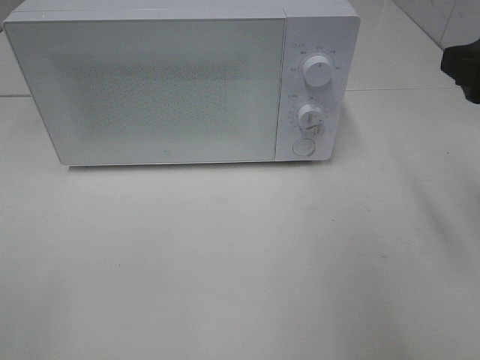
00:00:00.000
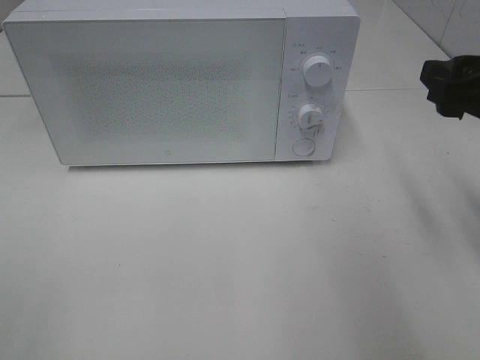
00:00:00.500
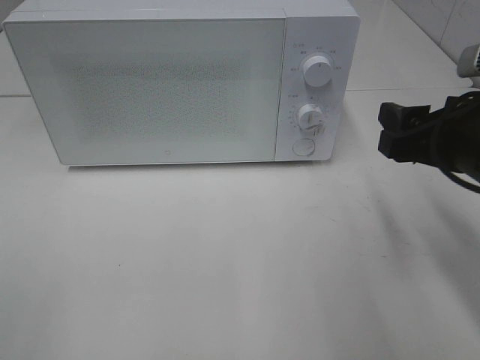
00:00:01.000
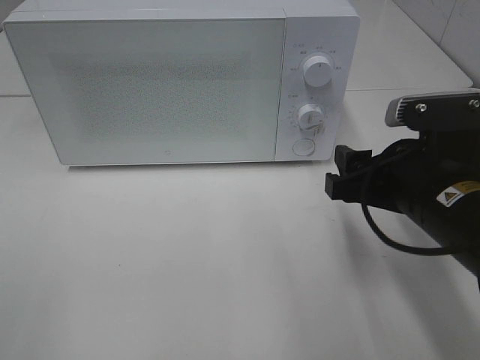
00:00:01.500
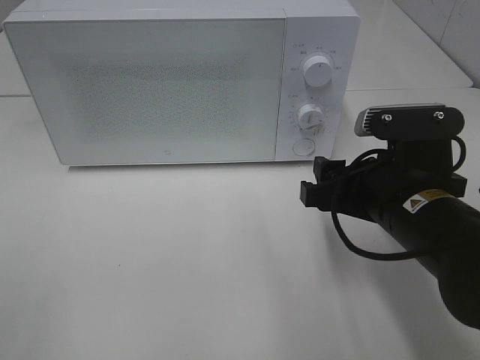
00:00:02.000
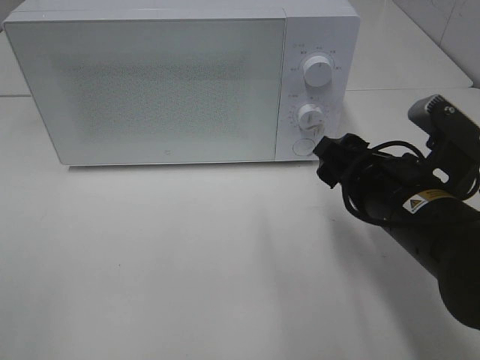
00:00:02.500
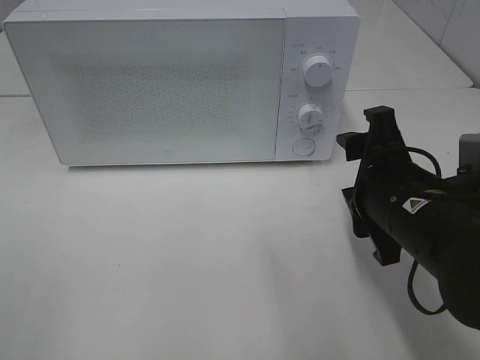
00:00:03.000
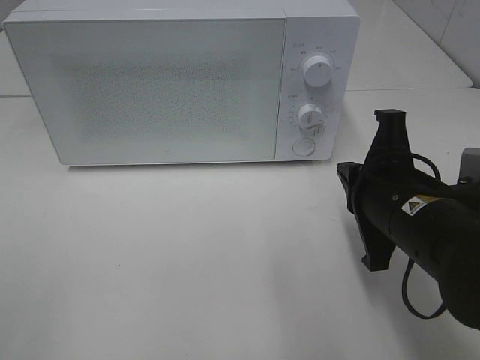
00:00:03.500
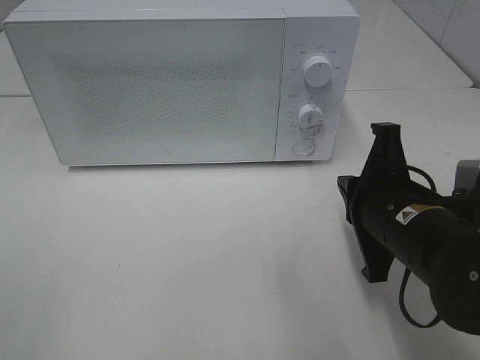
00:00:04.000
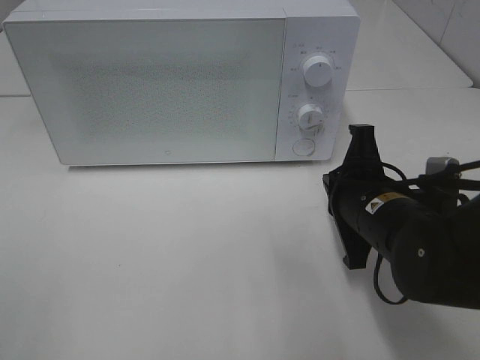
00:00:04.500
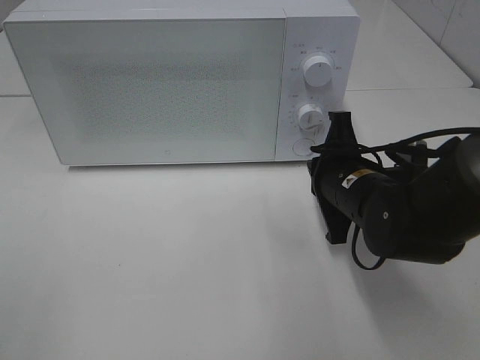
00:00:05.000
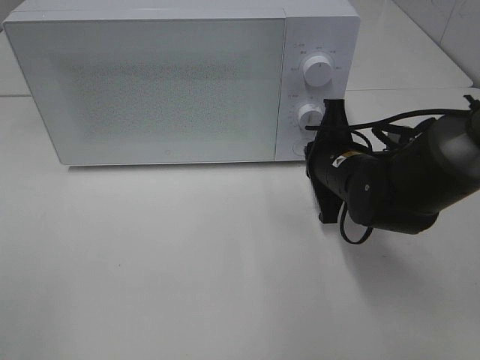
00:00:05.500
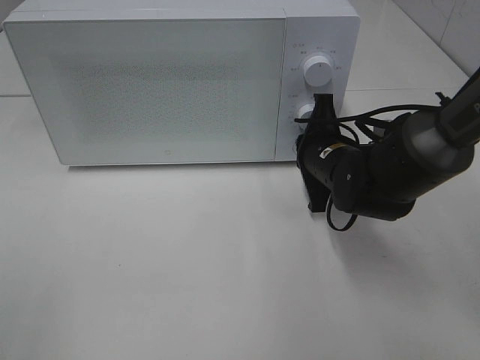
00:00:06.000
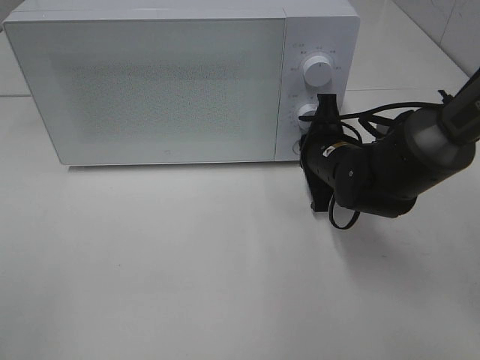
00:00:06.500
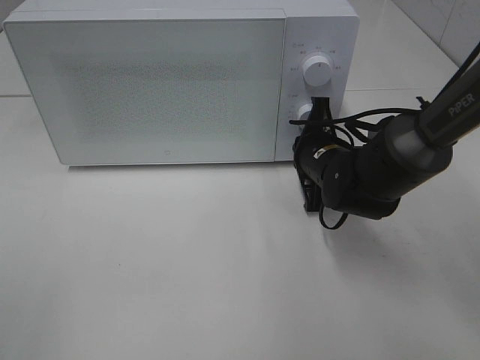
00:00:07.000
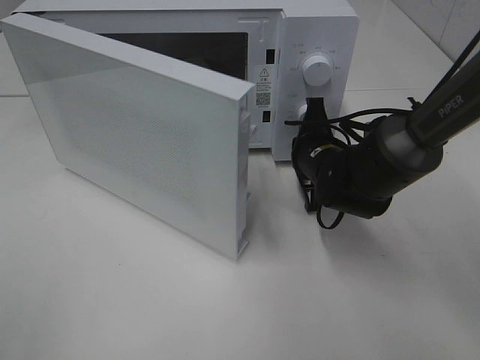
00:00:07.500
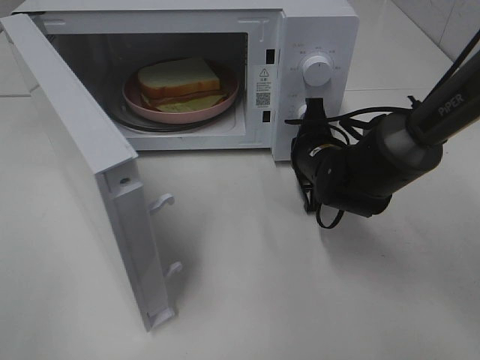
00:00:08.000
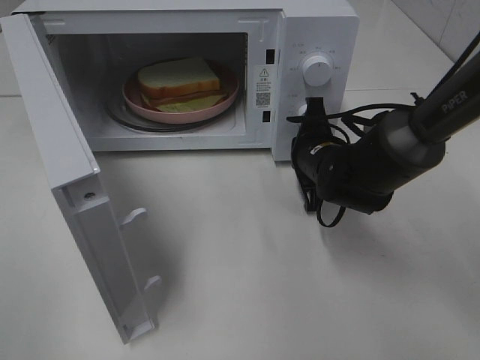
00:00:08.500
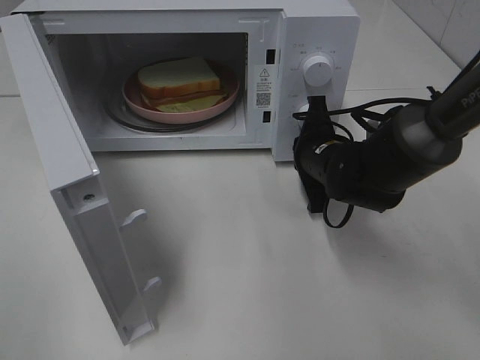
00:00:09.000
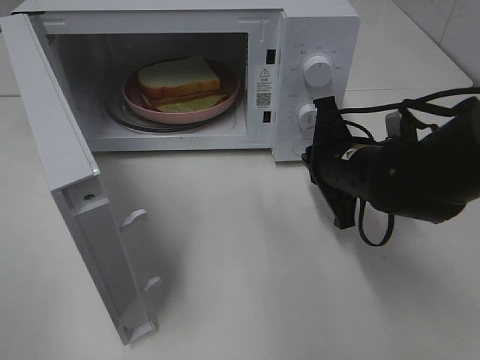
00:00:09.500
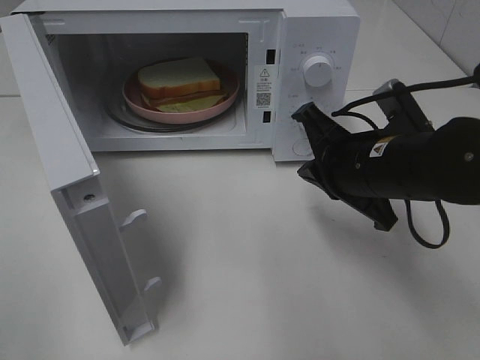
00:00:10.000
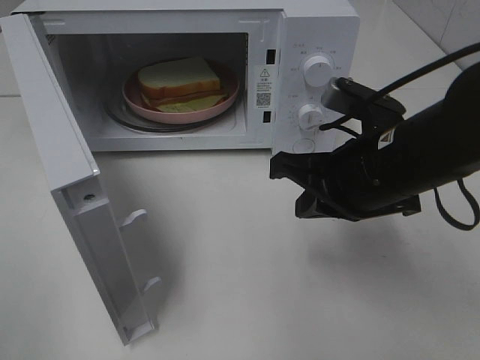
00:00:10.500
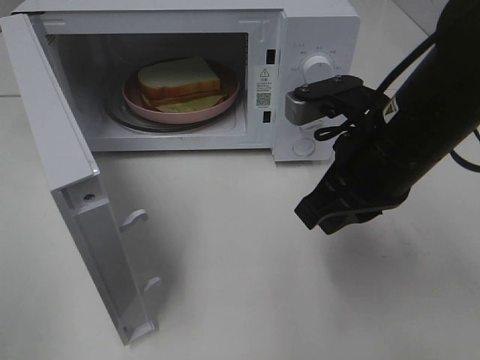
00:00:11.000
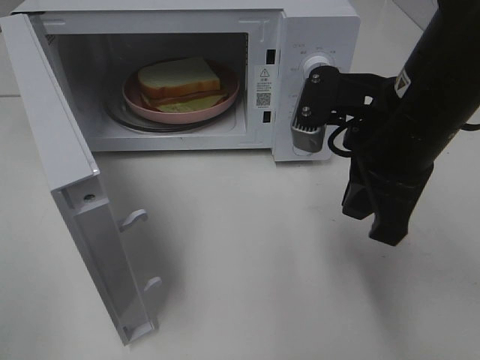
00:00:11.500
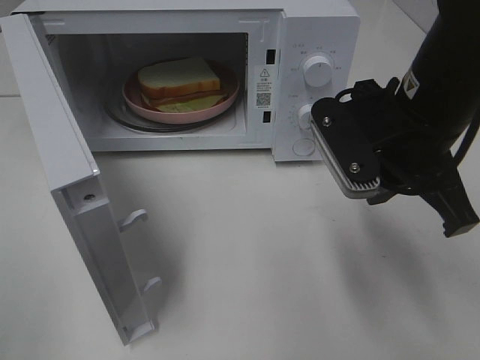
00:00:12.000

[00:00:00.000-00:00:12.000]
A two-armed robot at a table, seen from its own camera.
Task of the whole recording: Heat Sandwich.
Step, 00:00:00.000 to 00:00:09.000: Right hand: press the switch.
00:00:00.000 to 00:00:02.000: The right gripper is displaced downward and to the left by roughly 15 cm.
00:00:02.000 to 00:00:04.000: The right gripper closes its fingers.
00:00:04.000 to 00:00:06.000: The right gripper shifts about 15 cm forward.
00:00:08.000 to 00:00:10.000: The right gripper shifts some 15 cm backward and upward.
00:00:10.000 to 00:00:12.000: The right gripper heads upward, covering some 10 cm.

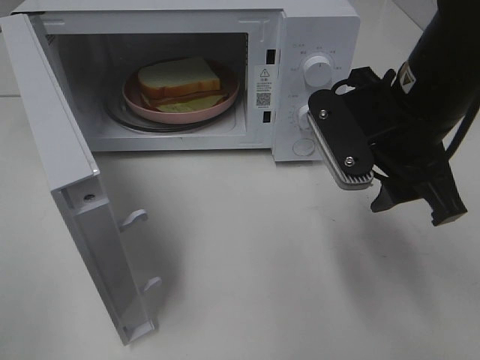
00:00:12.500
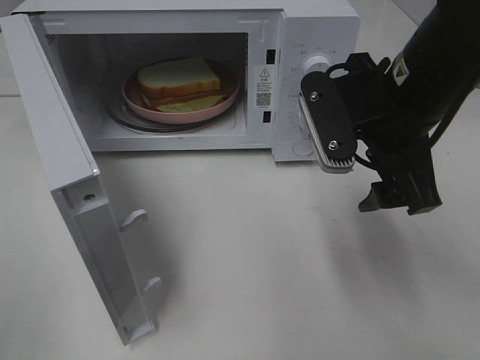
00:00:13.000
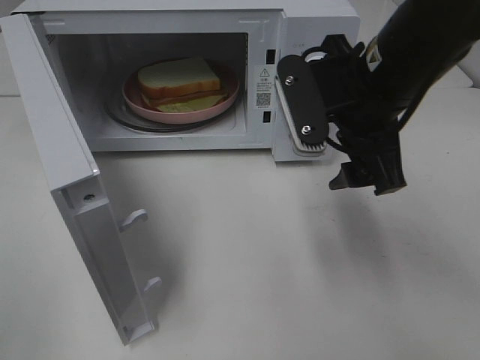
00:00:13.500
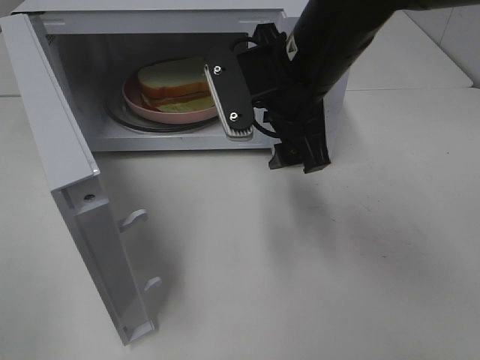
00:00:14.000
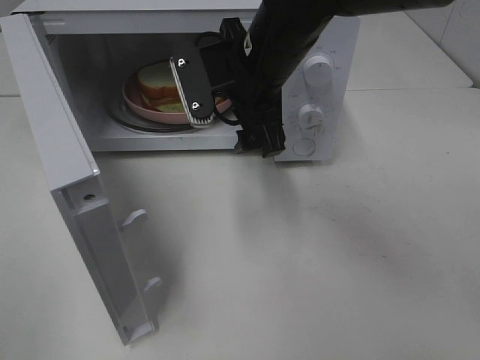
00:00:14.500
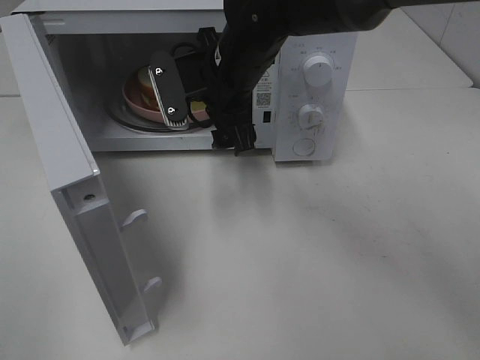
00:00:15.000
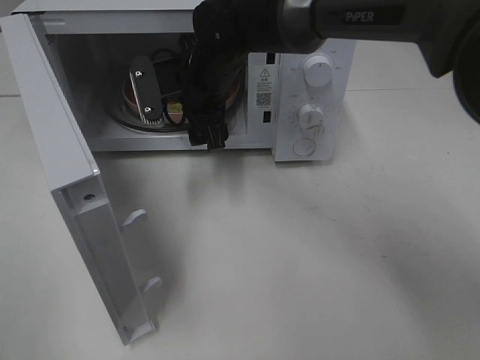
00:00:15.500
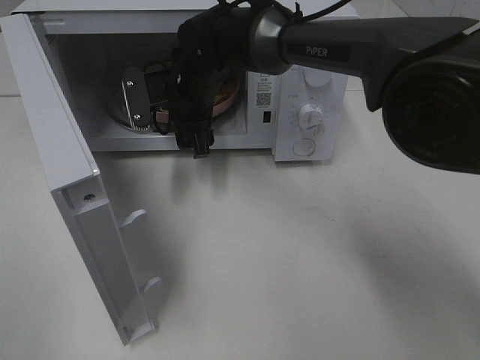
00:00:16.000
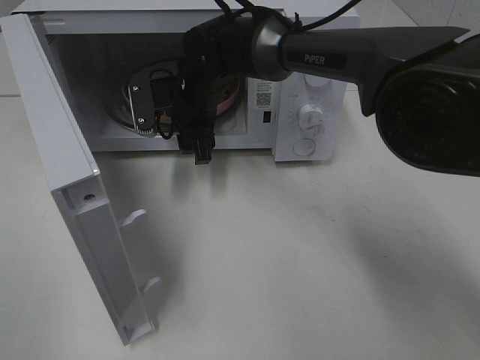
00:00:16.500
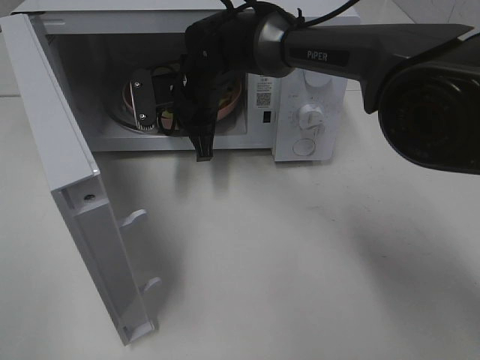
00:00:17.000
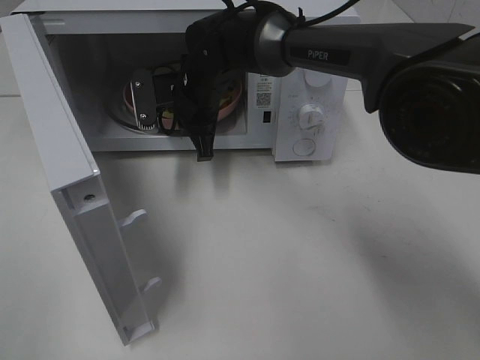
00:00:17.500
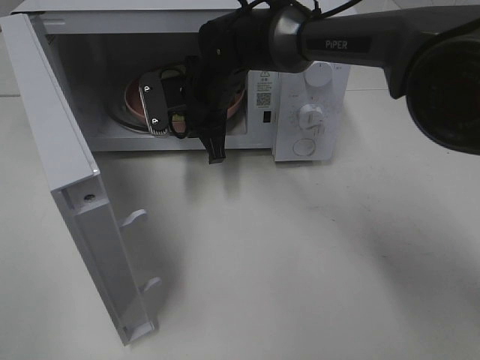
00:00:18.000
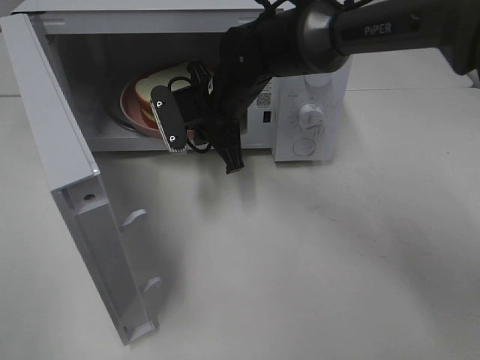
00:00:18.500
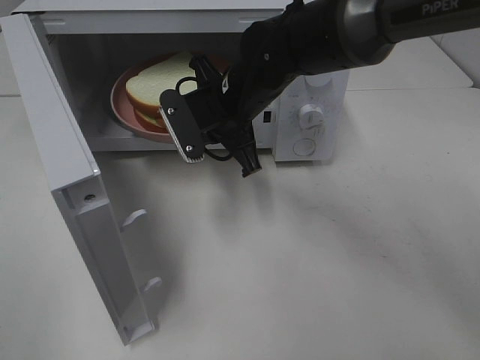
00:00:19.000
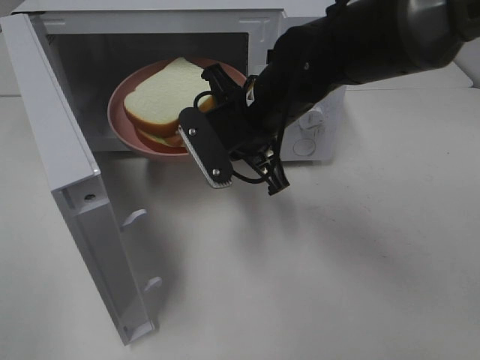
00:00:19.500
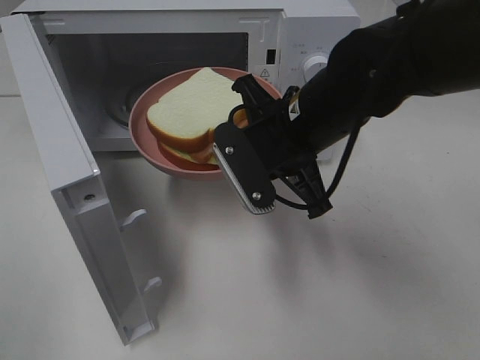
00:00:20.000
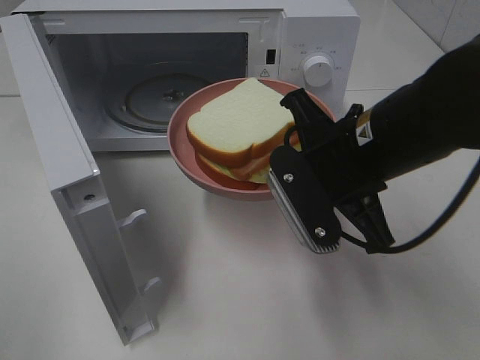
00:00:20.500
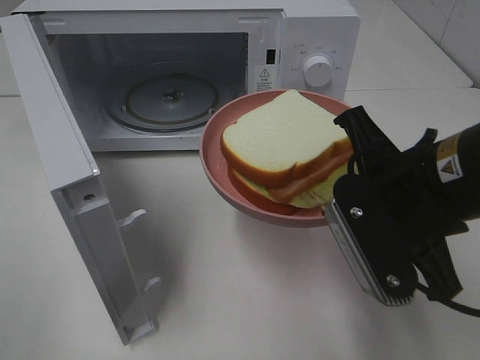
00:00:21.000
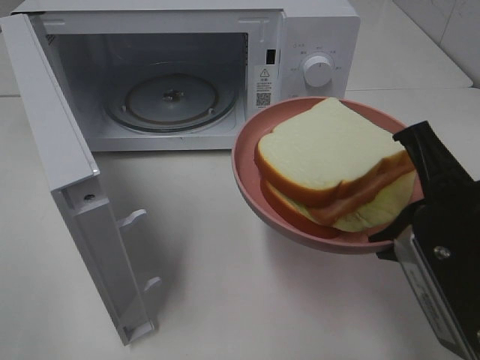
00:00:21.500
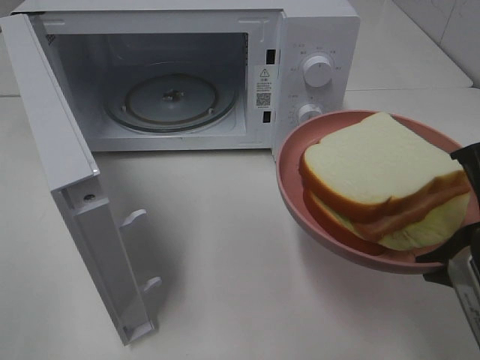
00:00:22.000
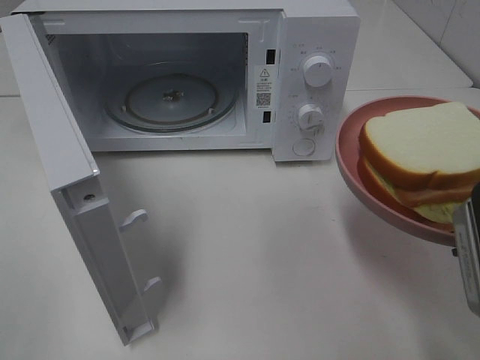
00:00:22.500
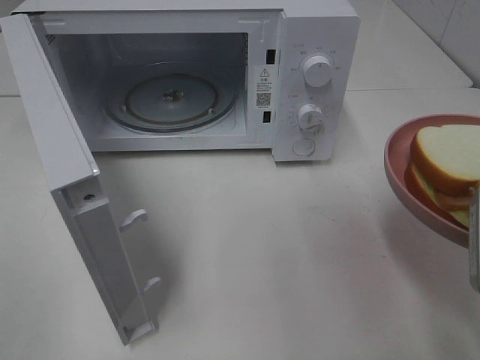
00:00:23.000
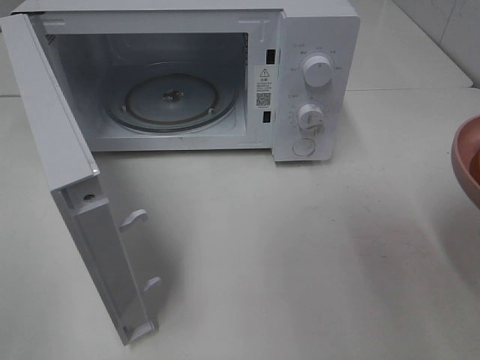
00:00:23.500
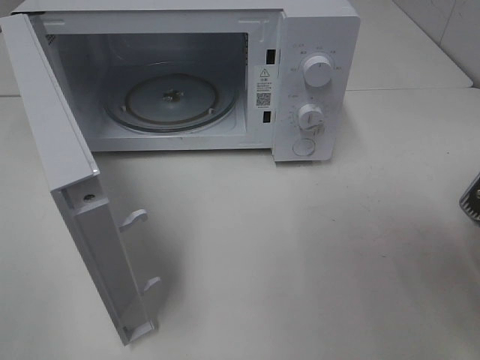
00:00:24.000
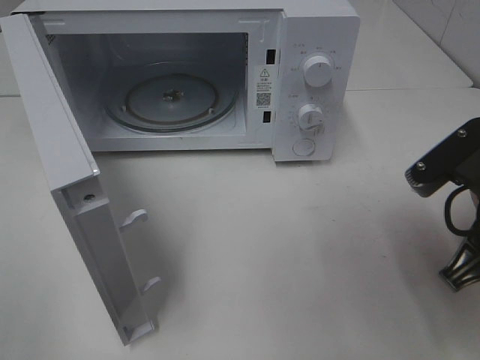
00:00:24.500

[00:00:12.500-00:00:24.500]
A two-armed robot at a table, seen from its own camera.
Task of the whole recording: Heat Sandwich.
Step, 00:00:12.500 to 00:00:17.500: Right hand: grab the plate with the sandwich.
00:00:12.500 to 00:00:14.500: The right gripper goes about 15 cm to the left and forward.
00:00:14.500 to 00:00:16.500: The right gripper moves forward, downward and to the left, about 15 cm.
00:00:16.500 to 00:00:18.500: The right gripper shifts by about 5 cm, and closes its fingers.
00:00:18.500 to 00:00:20.500: The right gripper goes approximately 20 cm backward and to the right.
00:00:20.500 to 00:00:22.500: The right gripper travels backward and to the right by approximately 15 cm.
00:00:22.500 to 00:00:24.500: The right gripper goes approximately 5 cm forward.

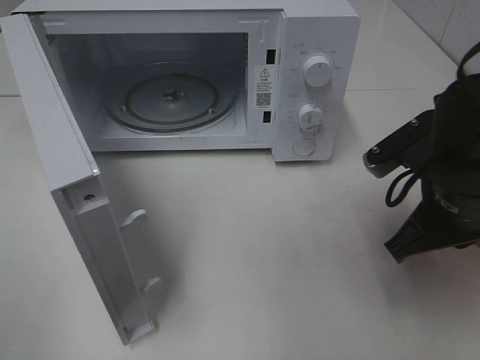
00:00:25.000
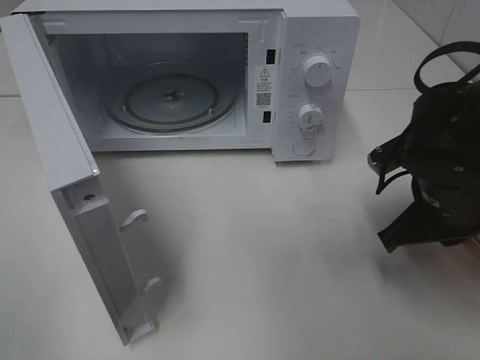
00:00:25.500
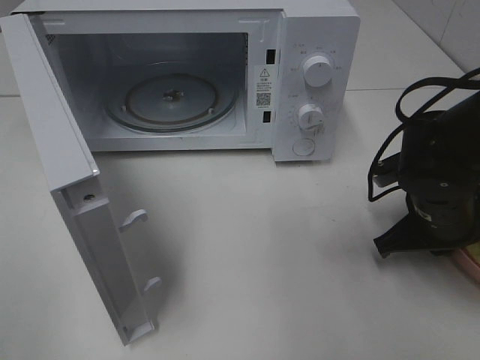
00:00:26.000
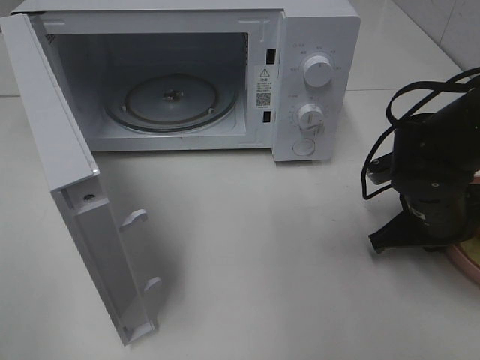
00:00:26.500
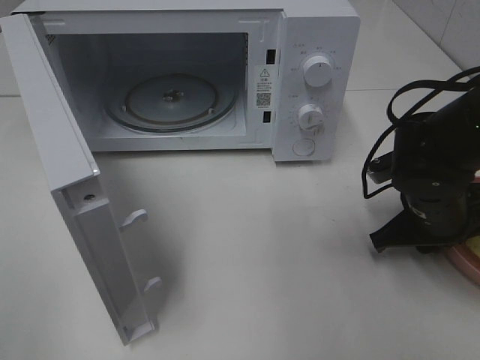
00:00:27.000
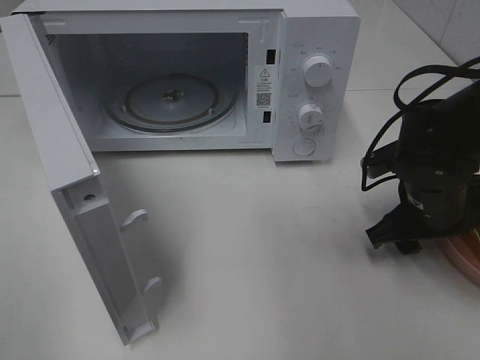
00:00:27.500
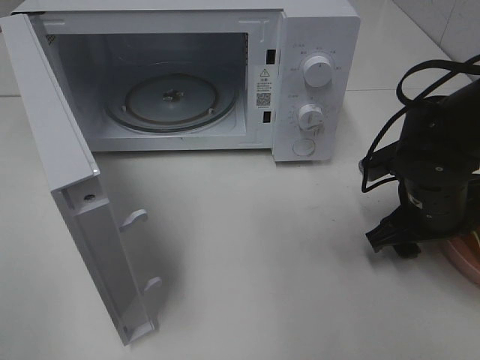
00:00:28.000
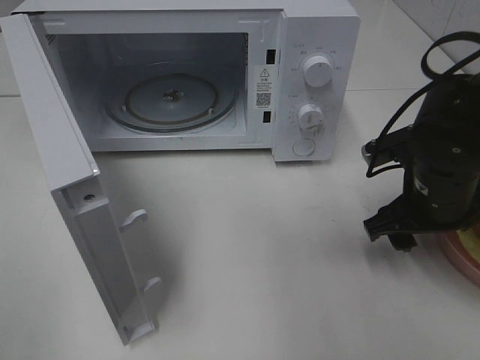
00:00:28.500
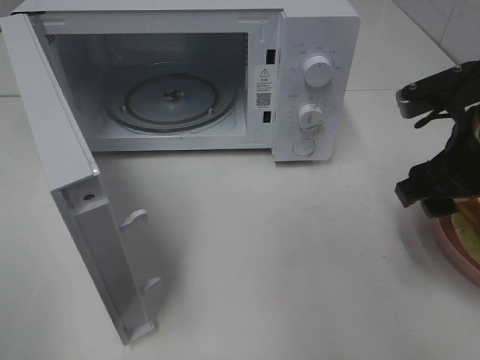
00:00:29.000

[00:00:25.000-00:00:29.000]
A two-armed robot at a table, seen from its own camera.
Task of the whole recording: Heat Sandwich.
Step, 00:00:25.000 to 00:00:28.500: Right hand: place the plate on the table.
00:00:25.000 to 00:00:27.000: The right gripper travels downward and forward by roughly 10 cm.
00:00:27.000 to 00:00:29.000: The right gripper is displaced upward by roughly 15 cm, and opens up.
